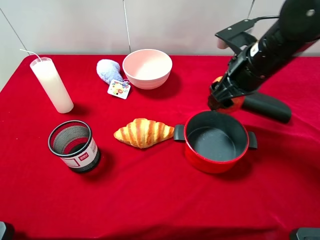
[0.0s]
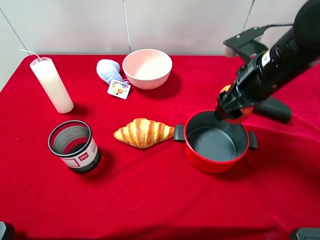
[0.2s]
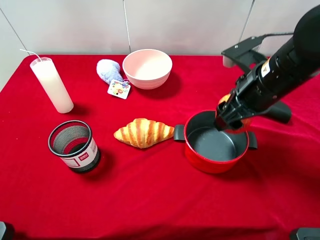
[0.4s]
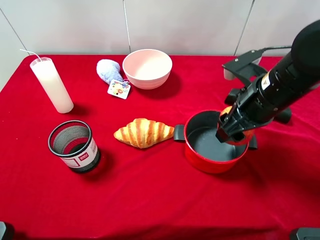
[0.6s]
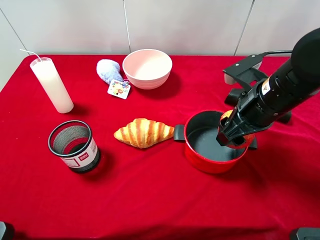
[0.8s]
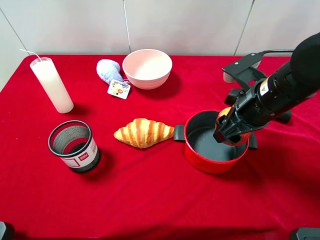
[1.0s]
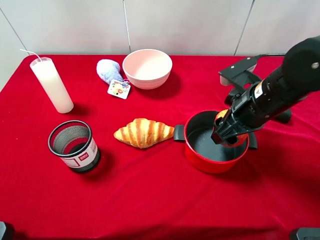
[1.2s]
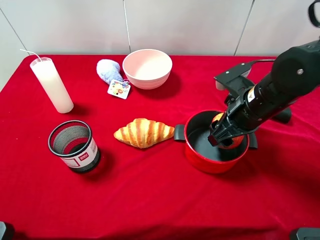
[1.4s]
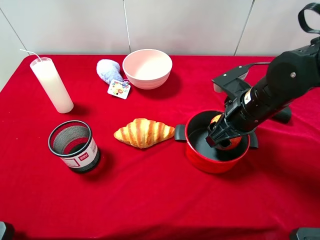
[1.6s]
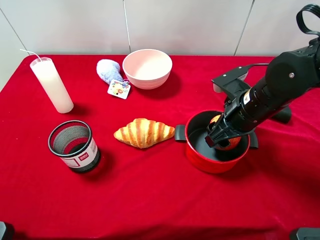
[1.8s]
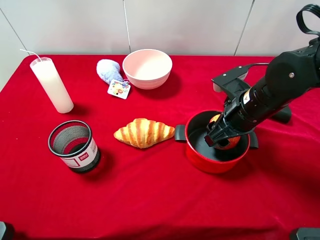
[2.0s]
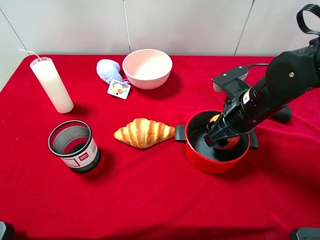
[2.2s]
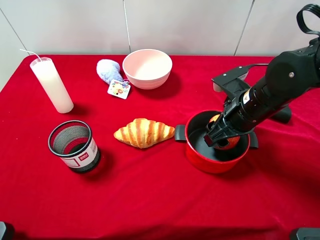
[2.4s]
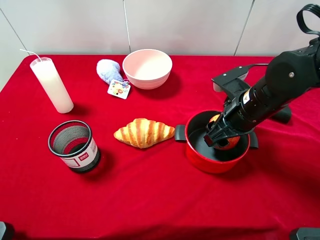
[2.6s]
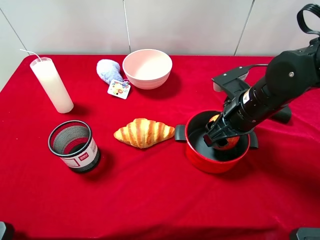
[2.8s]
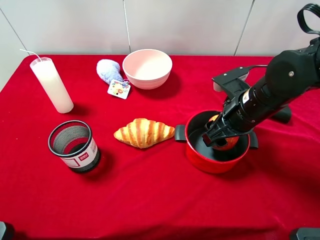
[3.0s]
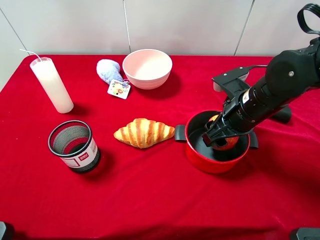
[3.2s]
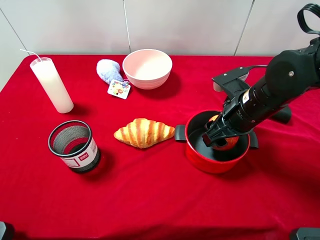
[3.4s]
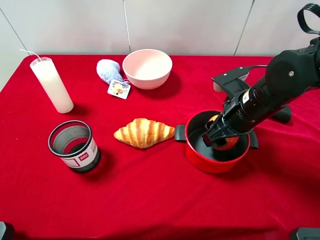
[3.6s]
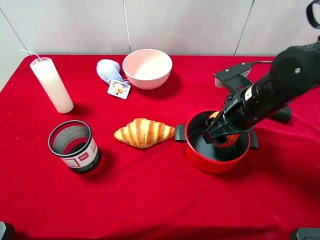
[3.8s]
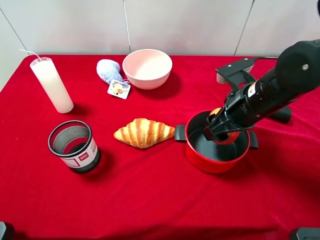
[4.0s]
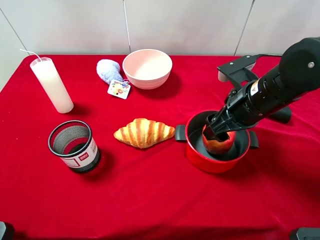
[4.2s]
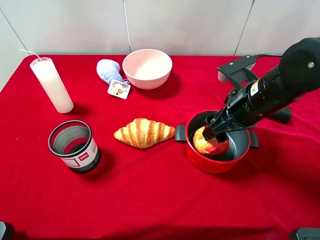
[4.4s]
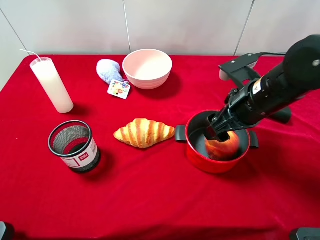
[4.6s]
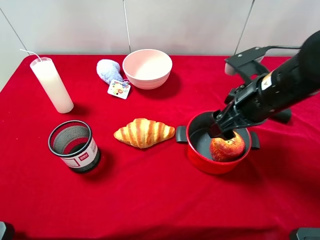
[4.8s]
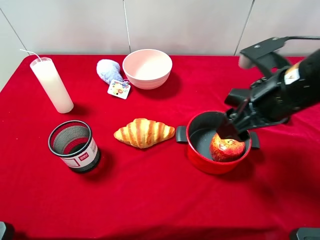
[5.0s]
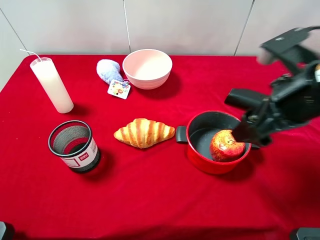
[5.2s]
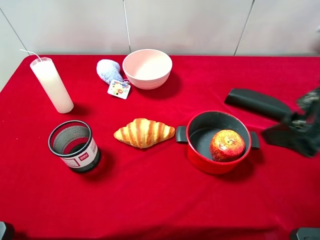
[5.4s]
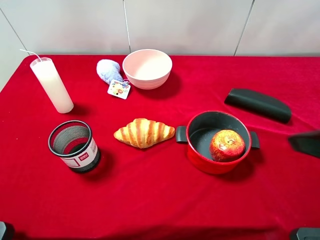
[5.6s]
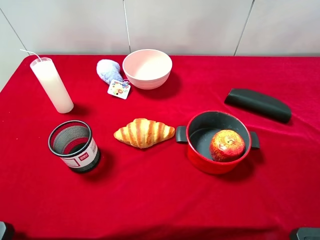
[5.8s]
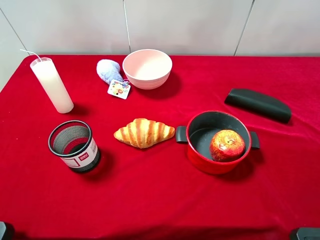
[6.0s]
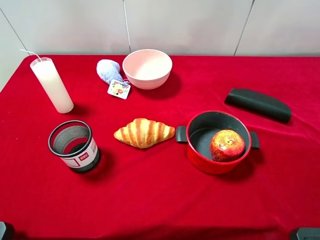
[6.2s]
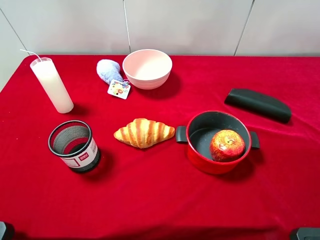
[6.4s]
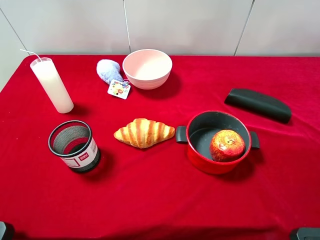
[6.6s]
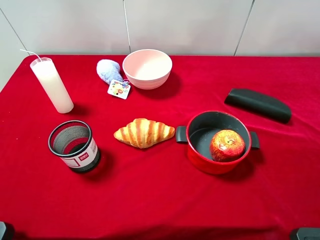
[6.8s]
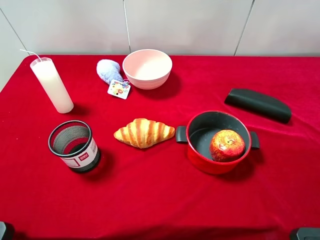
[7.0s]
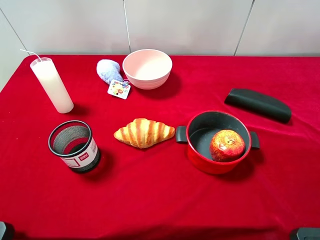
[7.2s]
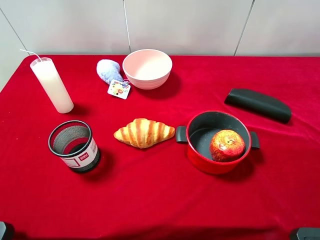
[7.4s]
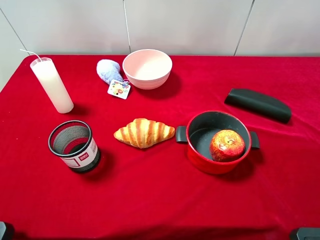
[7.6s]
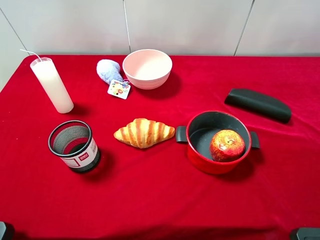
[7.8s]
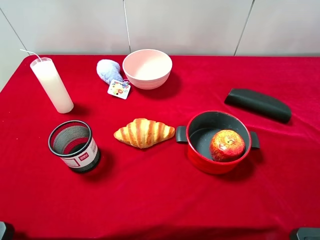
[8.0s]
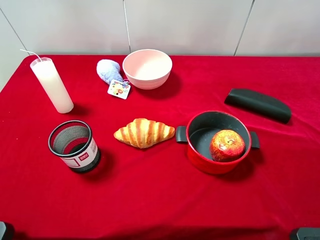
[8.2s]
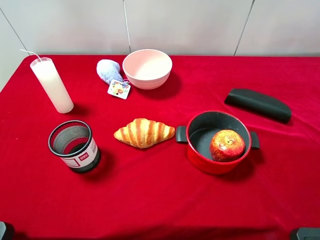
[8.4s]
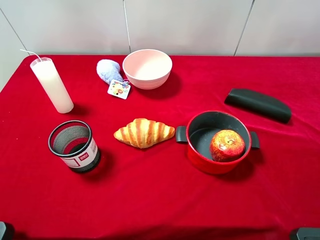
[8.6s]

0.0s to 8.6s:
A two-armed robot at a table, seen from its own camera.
Task of the whole recording: pick up an item with a gripper and place it in a random container on the desktop.
0.0s to 1.4s: The right gripper is displaced downward by some 5 cm.
1.4s to 2.8s: The two grippers keep their place.
2.8s to 4.4s: The right gripper opens its fingers.
4.4s to 5.8s: The right gripper is displaced backward, upward and to the right by roughly 25 cm.
